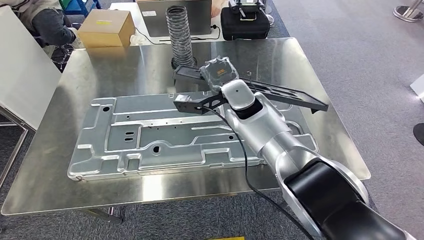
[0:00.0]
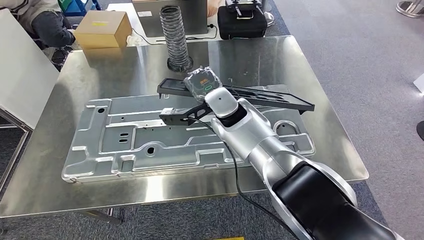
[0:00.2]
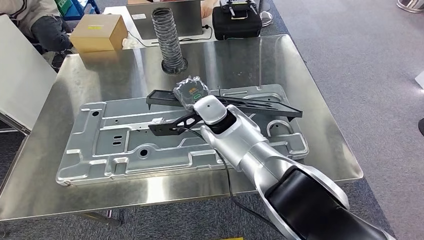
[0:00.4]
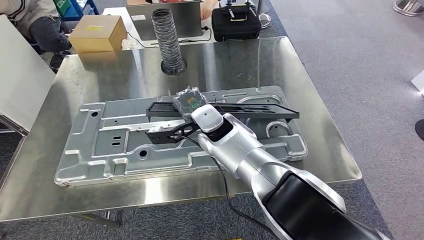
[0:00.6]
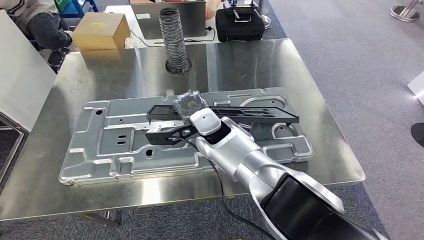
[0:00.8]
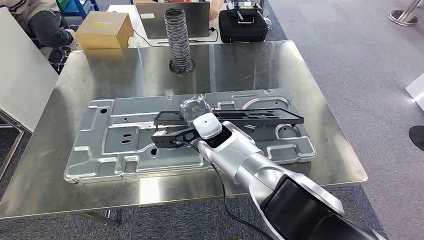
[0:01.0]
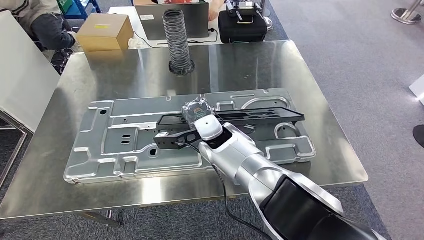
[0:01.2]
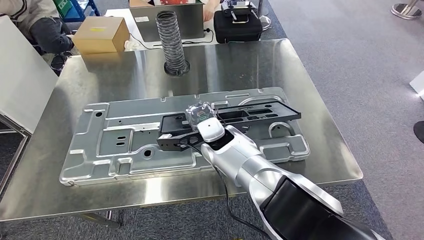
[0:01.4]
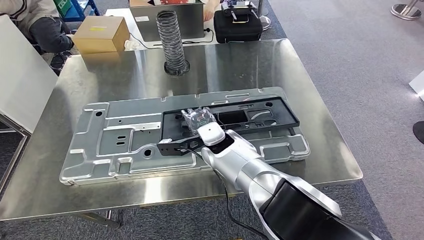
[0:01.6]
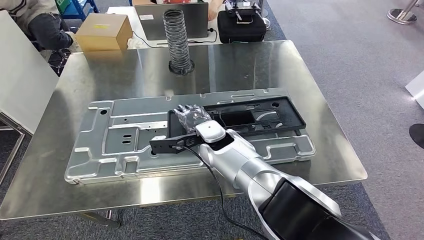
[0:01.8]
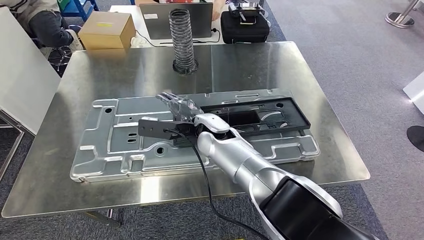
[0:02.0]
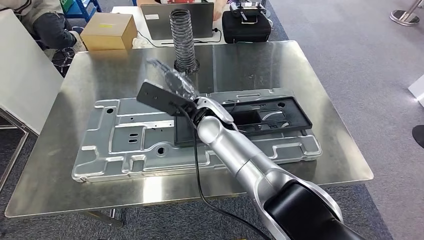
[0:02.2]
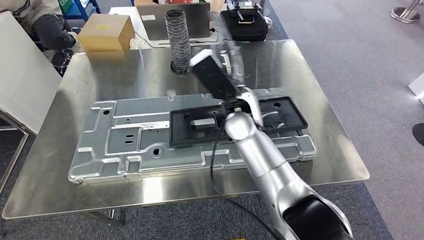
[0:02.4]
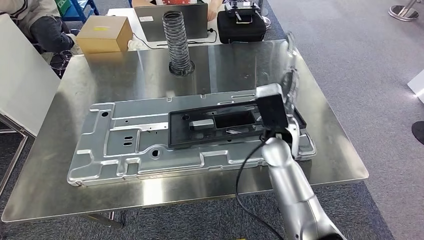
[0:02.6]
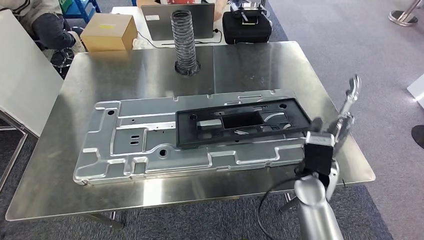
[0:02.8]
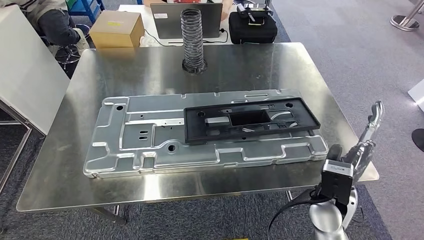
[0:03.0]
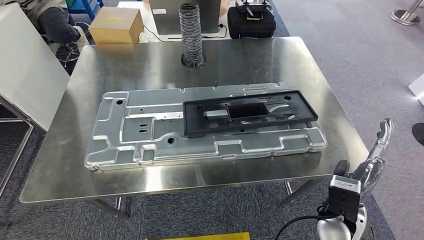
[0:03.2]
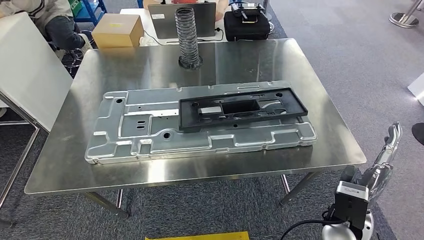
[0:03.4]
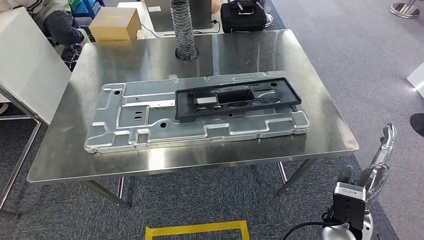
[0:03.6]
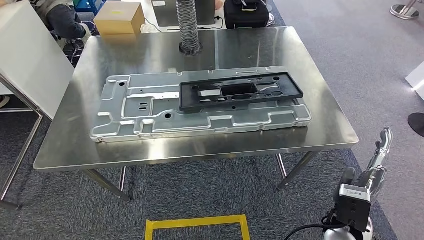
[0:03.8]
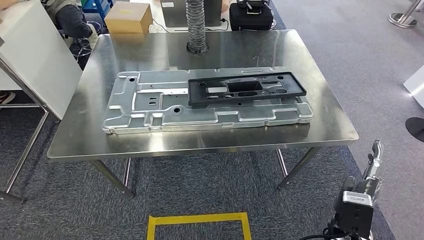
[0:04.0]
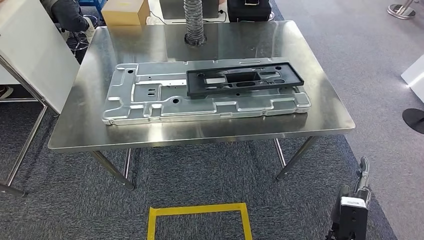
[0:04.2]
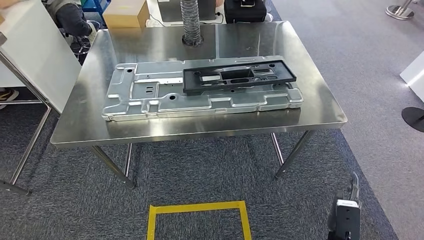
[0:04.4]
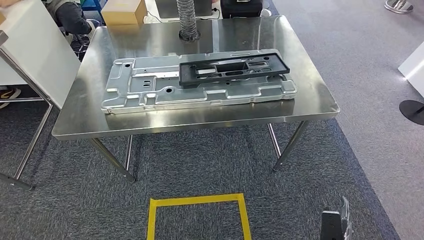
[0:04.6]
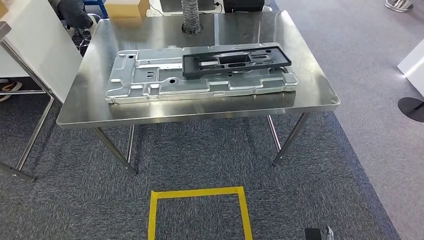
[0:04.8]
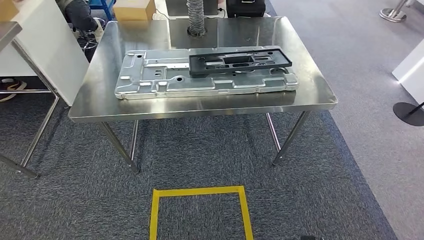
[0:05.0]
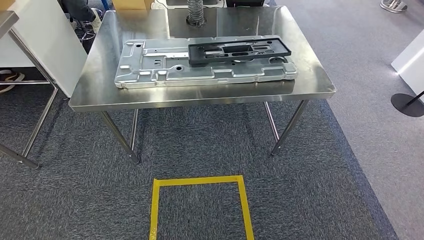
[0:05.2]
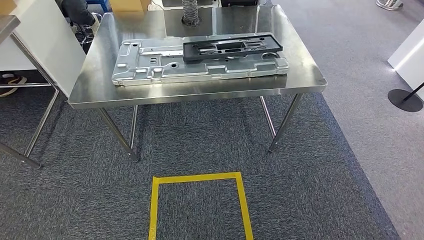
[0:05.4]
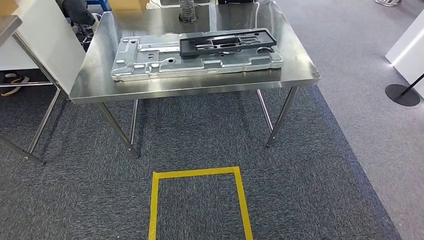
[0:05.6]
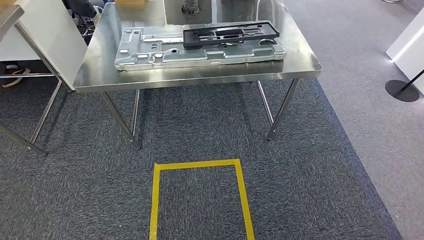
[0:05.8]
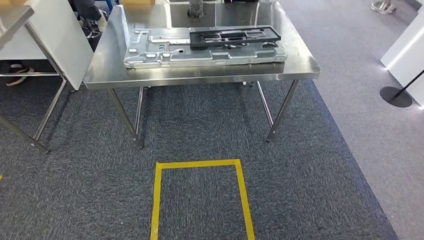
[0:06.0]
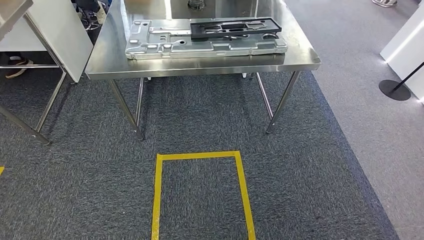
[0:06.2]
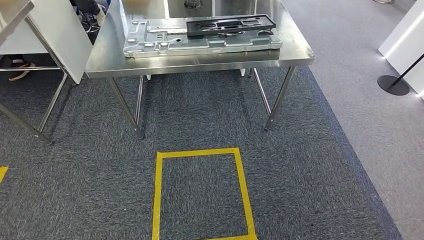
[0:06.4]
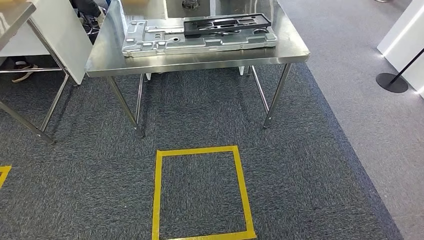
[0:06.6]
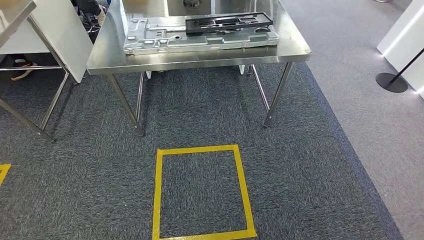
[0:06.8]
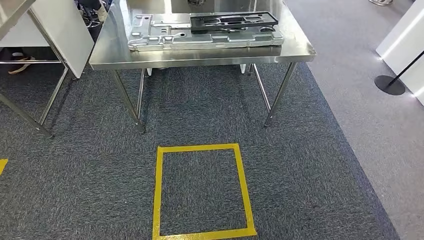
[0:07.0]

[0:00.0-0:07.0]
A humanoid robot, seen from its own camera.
Step, 0:00.0 to 0:03.4: Insert the small component into the corresponding slot on the workbench.
Step, 0:03.6 to 0:06.8: Move to the initial position of the workbench.
